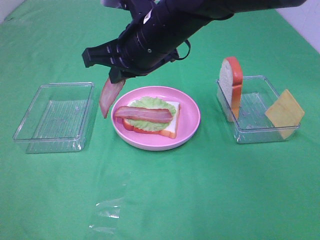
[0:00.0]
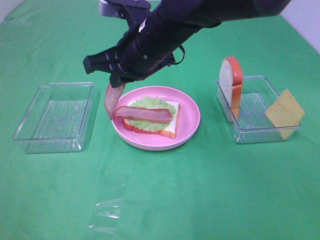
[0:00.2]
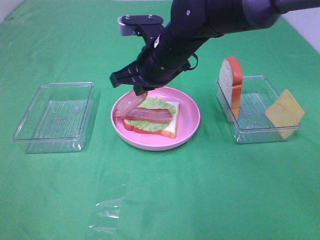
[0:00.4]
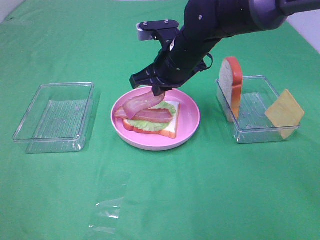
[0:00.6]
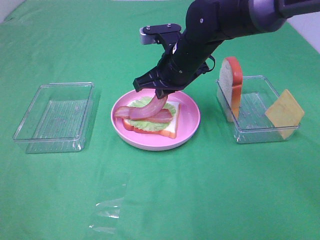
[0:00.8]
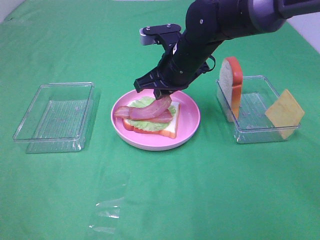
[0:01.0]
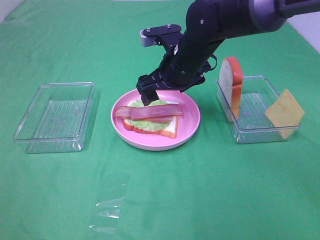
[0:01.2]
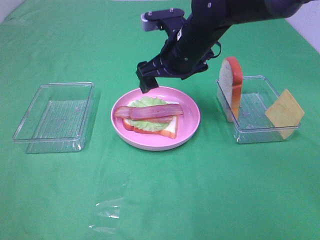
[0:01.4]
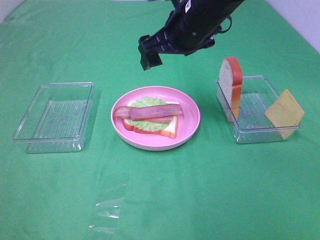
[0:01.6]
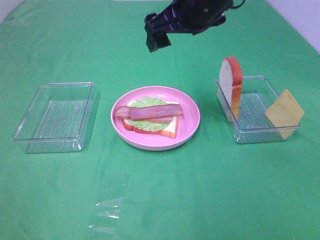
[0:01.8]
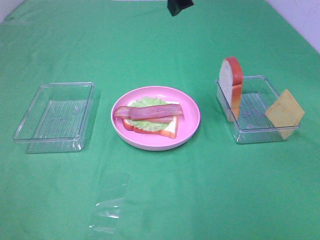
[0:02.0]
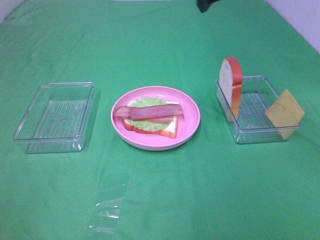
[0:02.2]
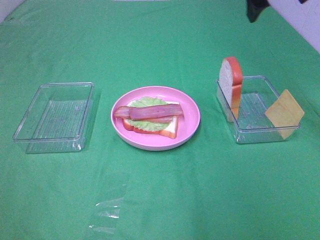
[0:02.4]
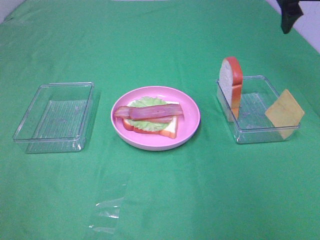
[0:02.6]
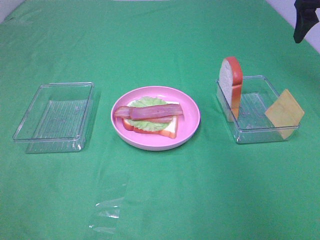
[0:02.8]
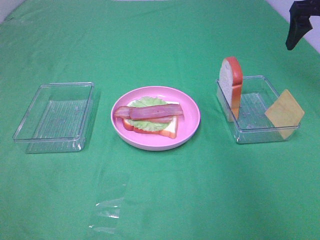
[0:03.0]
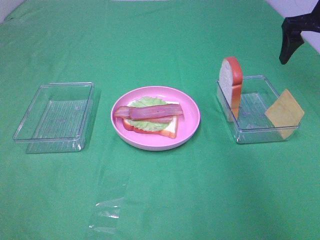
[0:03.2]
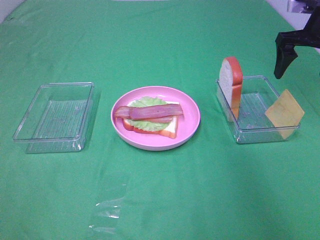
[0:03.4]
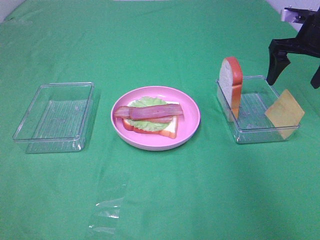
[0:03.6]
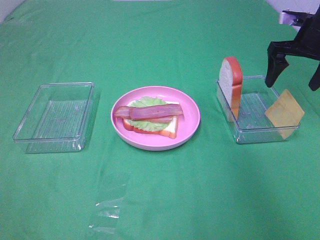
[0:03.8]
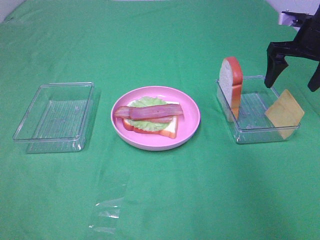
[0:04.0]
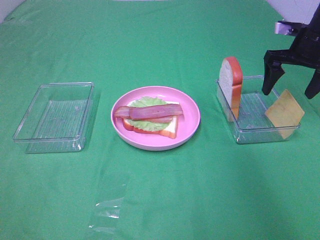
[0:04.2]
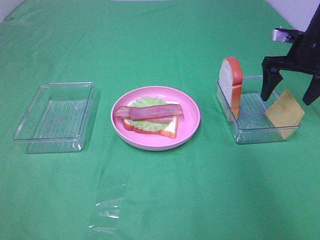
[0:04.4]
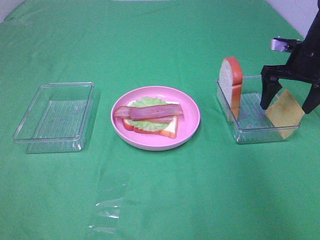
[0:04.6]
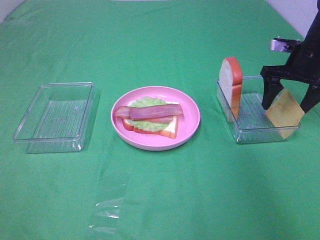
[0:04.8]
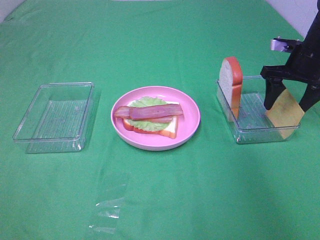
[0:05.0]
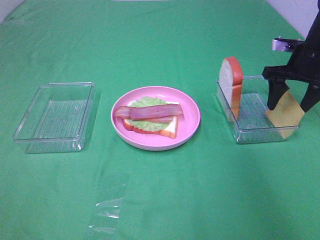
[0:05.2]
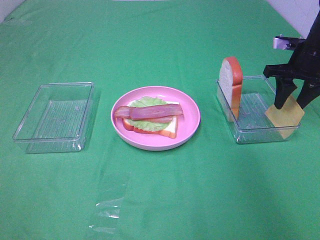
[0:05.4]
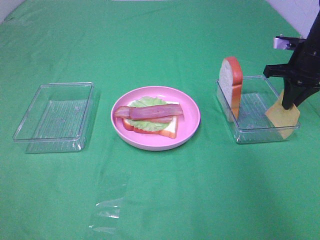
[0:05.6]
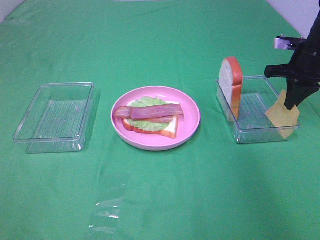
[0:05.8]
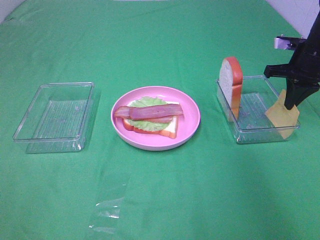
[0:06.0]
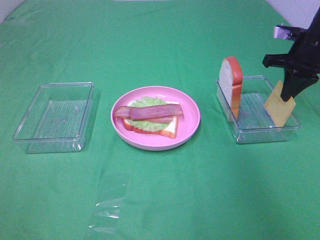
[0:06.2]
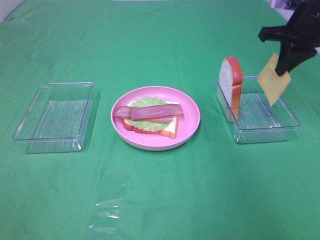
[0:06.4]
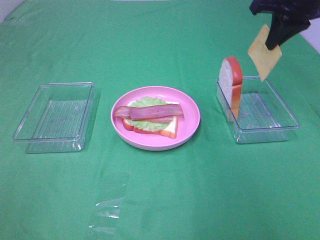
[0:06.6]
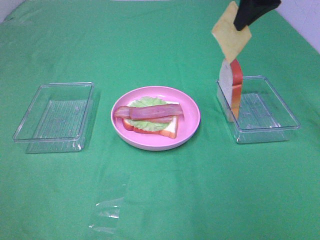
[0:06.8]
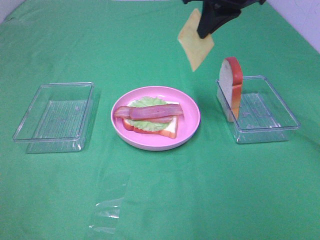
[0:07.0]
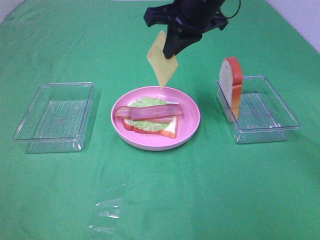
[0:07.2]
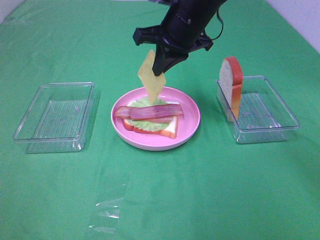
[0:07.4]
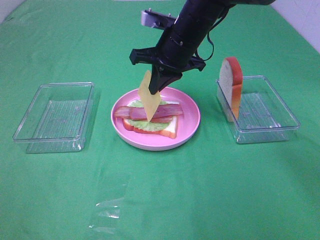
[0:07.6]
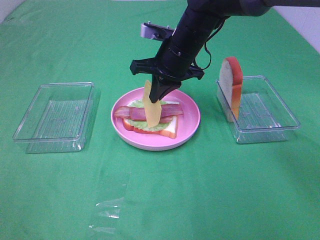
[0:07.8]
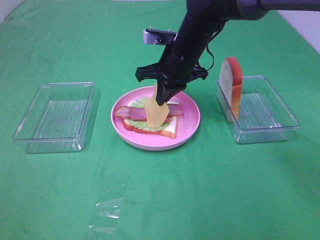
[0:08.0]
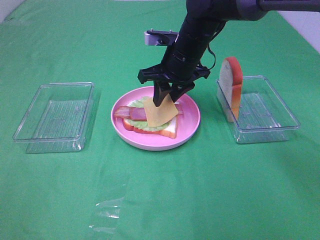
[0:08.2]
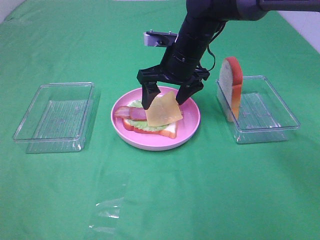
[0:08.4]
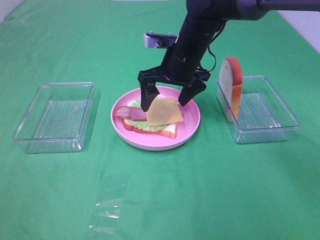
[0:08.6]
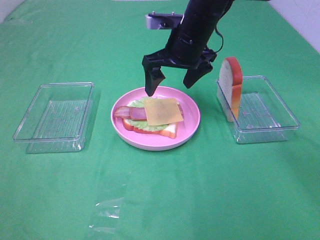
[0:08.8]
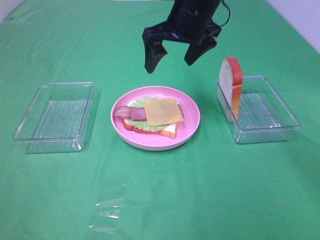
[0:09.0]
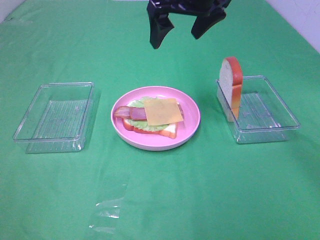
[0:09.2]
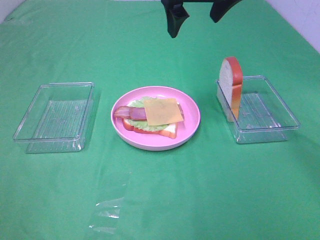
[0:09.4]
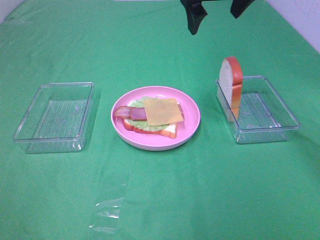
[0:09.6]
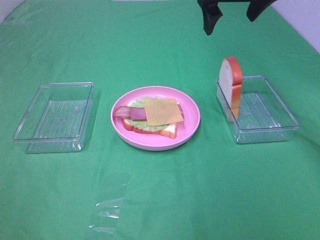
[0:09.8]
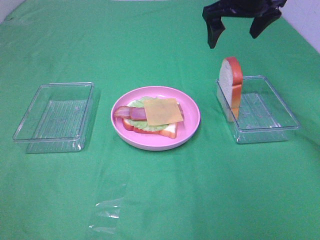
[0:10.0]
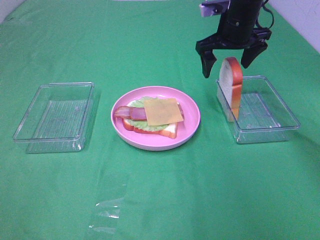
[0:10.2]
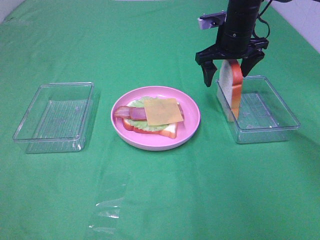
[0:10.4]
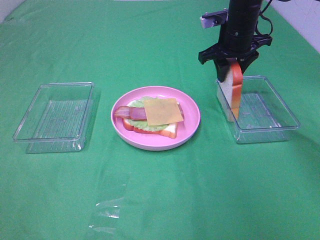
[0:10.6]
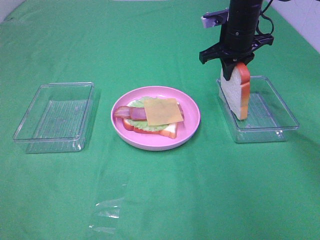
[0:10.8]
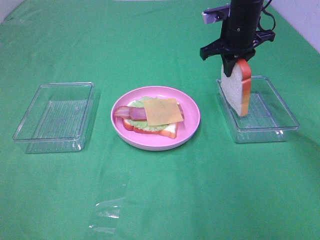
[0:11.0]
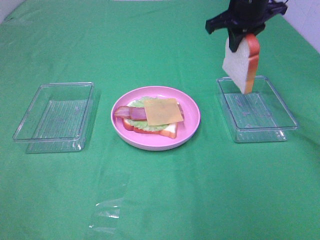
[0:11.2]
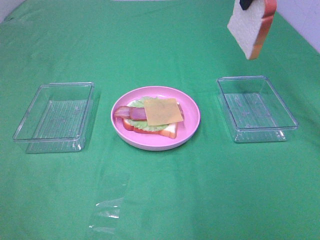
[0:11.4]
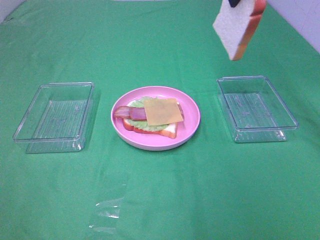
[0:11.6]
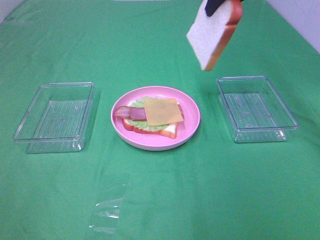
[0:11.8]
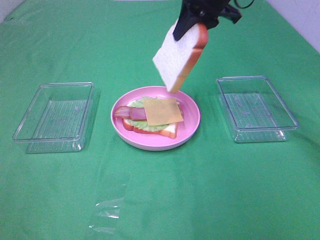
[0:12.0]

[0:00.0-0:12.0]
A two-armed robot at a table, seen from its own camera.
Task of the whole recording: Make sandwiches.
Step, 0:01.2 to 0:05.8: Right hand:grab the cheese slice.
Step, 0:06.0 to 0:08.6: Right hand:place the cheese slice on top of the bacon.
Step, 0:08.8 to 0:10.6: Right hand:grab the bread slice.
0:00.0 to 0:01.6: The right gripper is displaced to the right by approximately 5 cm, travels downward and back again, about 5 cm each way, and opens its fingers.
0:01.6 to 0:03.0: The right gripper goes roughly 25 cm to the right.
0:03.0 to 0:04.4: The right gripper travels downward by about 10 cm.
0:04.4 to 0:06.0: The right gripper closes its fingers.
0:06.0 to 0:07.6: The right gripper moves to the left, approximately 25 cm.
0:07.6 to 0:09.0: The right gripper is displaced upward by some 5 cm, and opens.
0:09.0 to 0:10.4: The right gripper is displaced to the right, downward and forward by roughly 15 cm.
0:10.4 to 0:12.0: The right gripper heads upward and to the left, covering approximately 10 cm, and closes up.

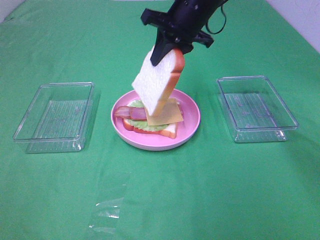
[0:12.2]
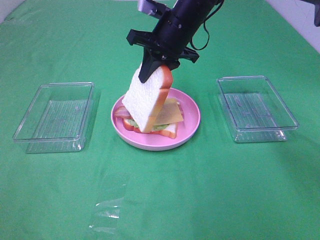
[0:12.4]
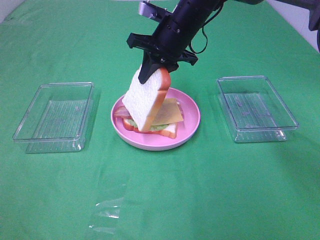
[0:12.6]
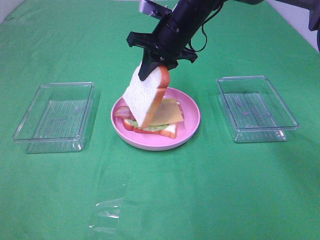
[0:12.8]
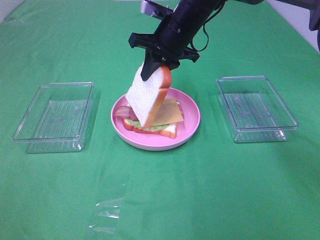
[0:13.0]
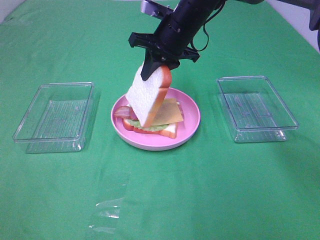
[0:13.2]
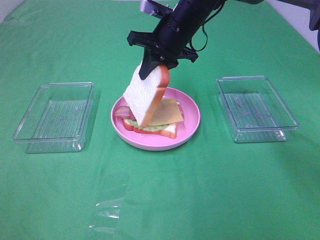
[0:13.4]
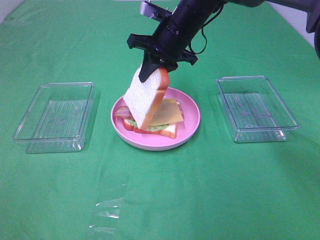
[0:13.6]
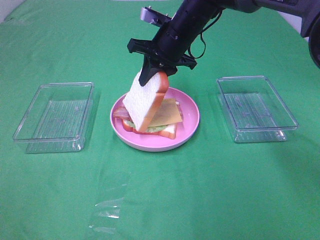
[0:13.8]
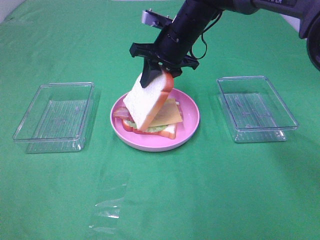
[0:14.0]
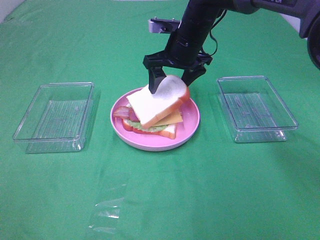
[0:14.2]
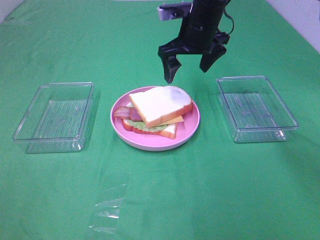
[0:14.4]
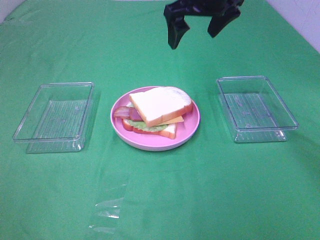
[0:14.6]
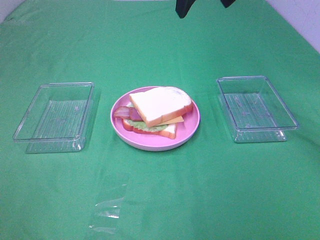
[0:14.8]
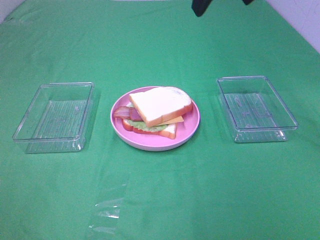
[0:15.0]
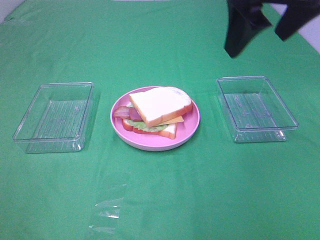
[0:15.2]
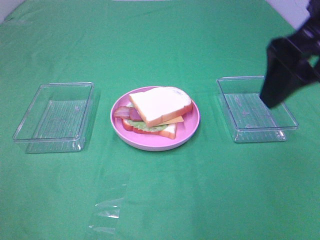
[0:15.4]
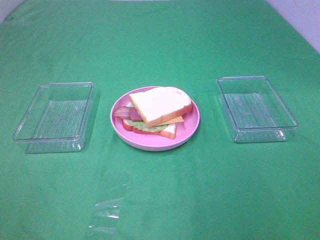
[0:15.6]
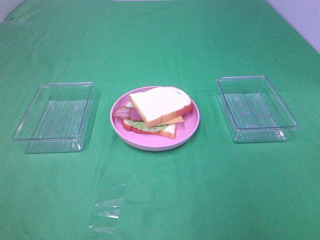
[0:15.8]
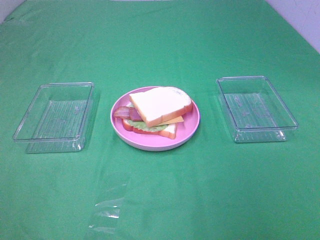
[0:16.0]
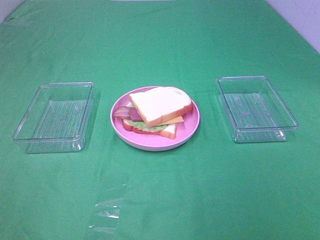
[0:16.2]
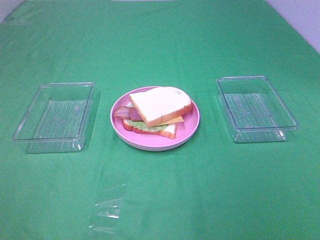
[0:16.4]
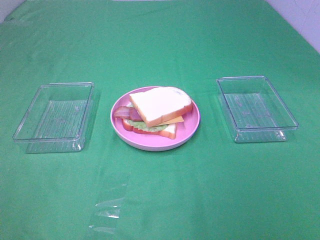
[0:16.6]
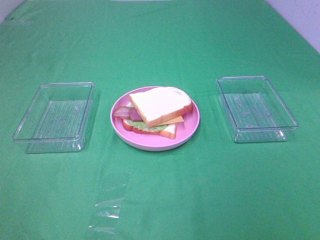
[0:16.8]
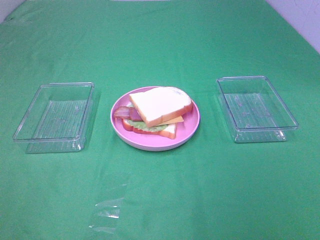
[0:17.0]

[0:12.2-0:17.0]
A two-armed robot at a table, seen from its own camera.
Task of the whole recording: Make sandwiches.
Step, 0:12.2 to 0:14.2: Right hand:place the bread slice on the cheese slice.
0:12.2 to 0:13.8: The right gripper shifts approximately 5 cm downward.
0:13.8 to 0:15.4: The right gripper heads backward, upward and to the right, covering roughly 30 cm, and opens its fingers.
0:15.4 to 0:17.0: The right gripper travels backward by about 20 cm.

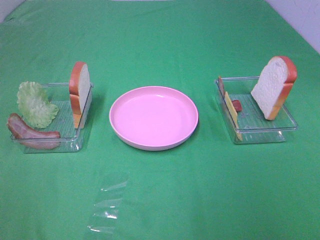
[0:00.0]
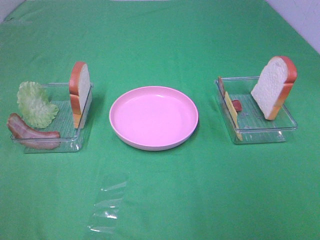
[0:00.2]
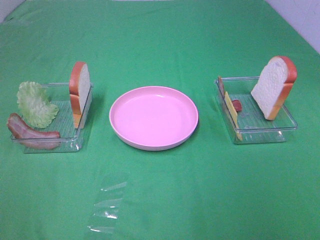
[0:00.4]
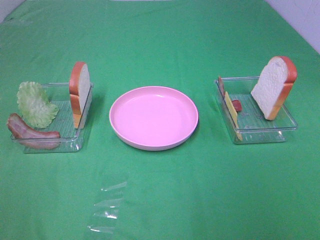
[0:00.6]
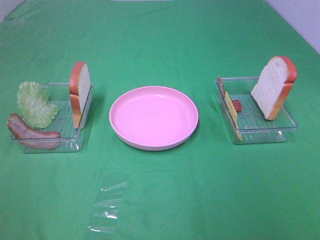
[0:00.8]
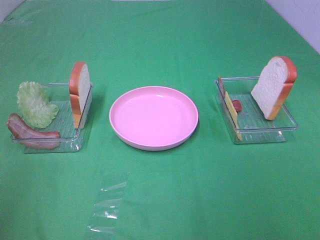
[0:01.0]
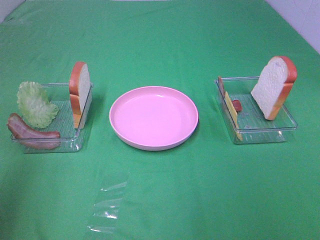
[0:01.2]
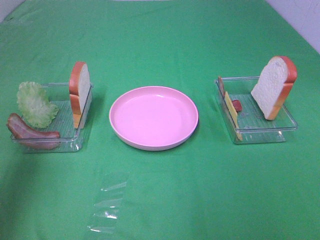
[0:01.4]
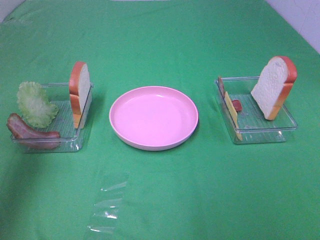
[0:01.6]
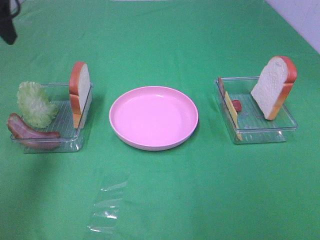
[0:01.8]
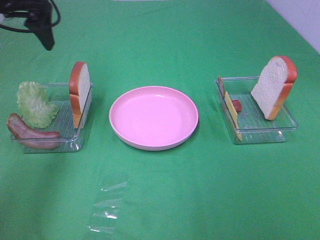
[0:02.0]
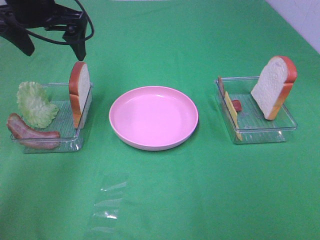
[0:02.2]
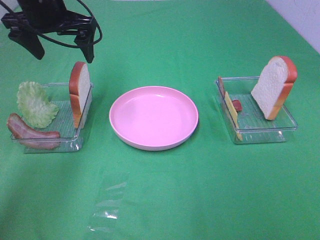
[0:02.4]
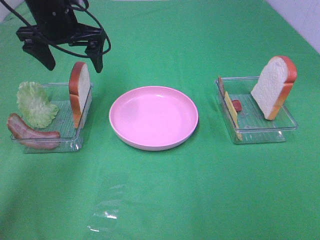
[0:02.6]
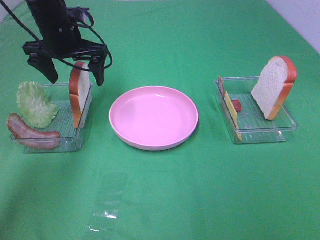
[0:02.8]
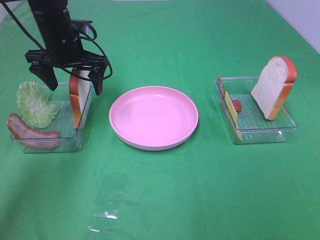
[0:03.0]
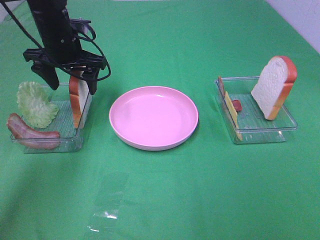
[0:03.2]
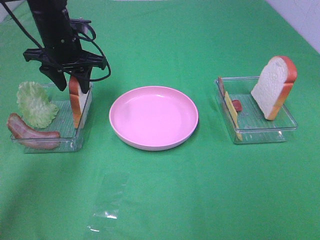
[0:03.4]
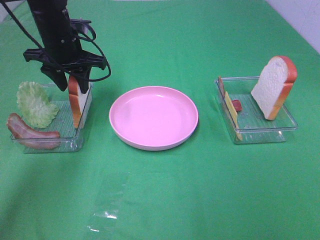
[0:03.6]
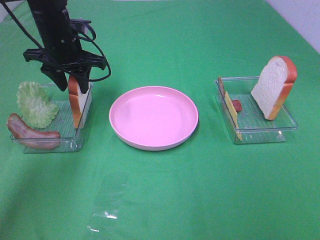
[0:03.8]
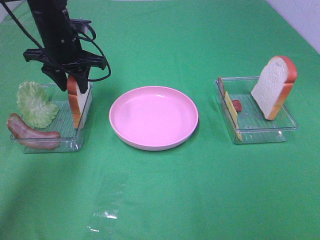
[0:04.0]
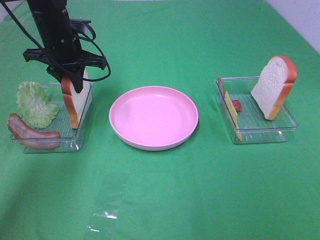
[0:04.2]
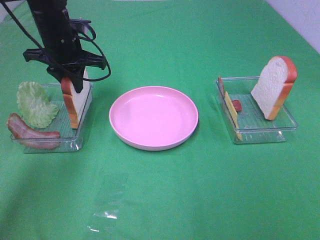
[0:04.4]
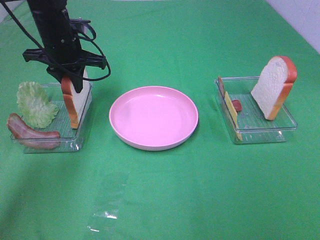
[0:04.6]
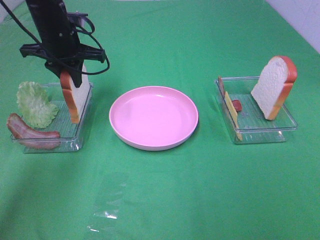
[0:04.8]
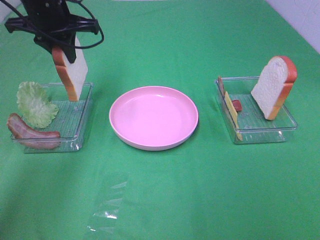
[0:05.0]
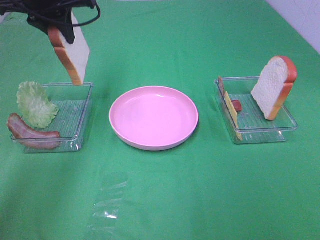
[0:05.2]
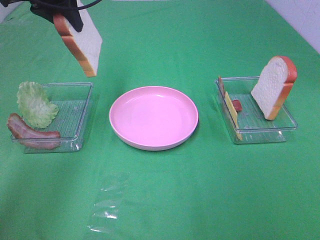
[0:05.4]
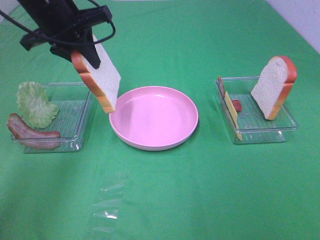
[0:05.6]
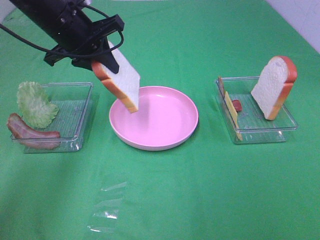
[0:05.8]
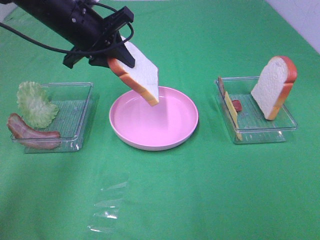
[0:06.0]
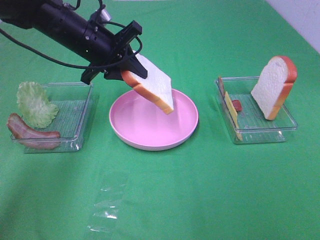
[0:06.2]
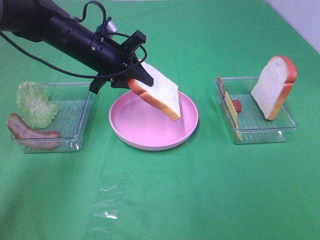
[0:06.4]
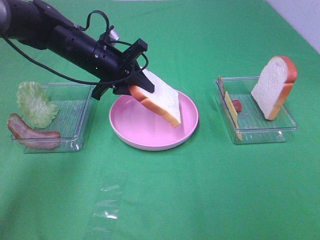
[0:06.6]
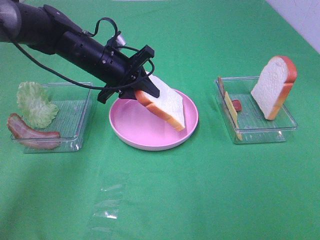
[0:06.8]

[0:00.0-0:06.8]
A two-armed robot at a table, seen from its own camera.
Task of the whole recording: Make sandwiches.
Step, 0:00.0 to 0:04.2: Left hand:grab the bread slice.
0:00.0 to 0:01.4: The left gripper is displaced forward by some 25 cm.
0:01.4 to 0:02.8: The left gripper is displaced forward, downward and to the right by roughly 30 cm.
0:02.8 to 0:04.0: The left gripper closes up.
0:04.0 to 0:05.4: The left gripper shifts about 15 cm upward.
0:05.4 to 0:06.8: The left gripper shifts some 20 cm downward.
